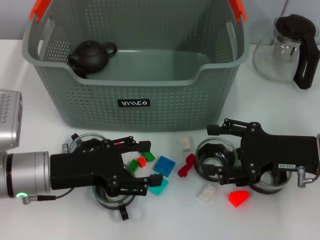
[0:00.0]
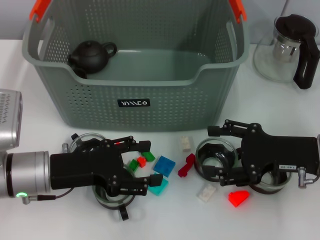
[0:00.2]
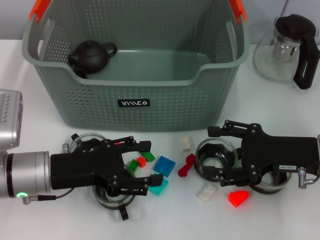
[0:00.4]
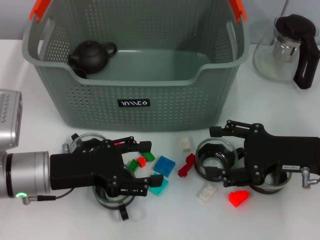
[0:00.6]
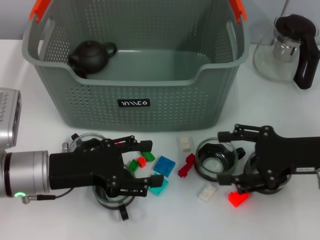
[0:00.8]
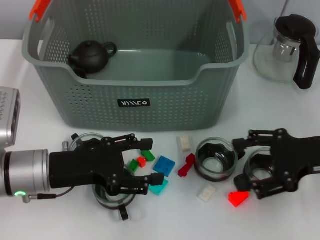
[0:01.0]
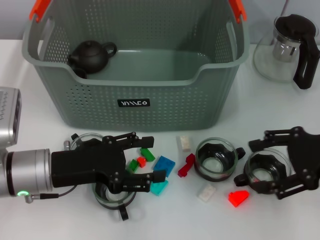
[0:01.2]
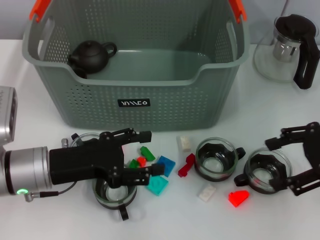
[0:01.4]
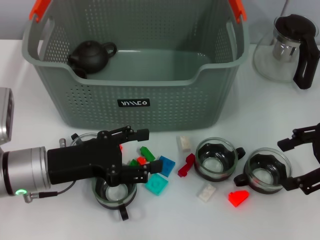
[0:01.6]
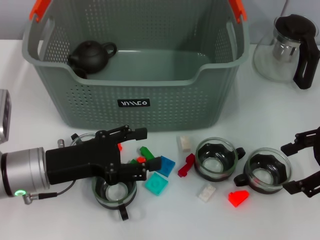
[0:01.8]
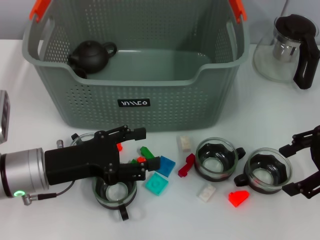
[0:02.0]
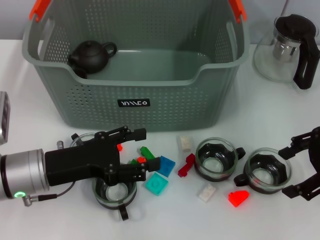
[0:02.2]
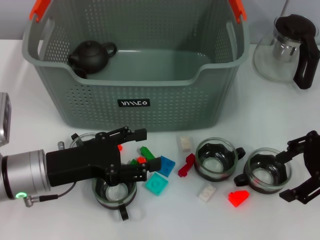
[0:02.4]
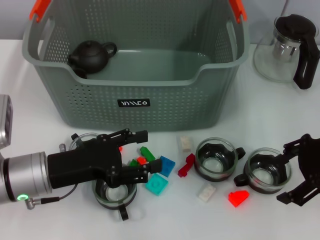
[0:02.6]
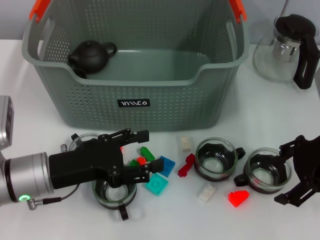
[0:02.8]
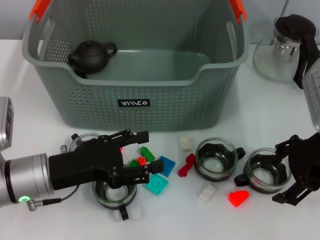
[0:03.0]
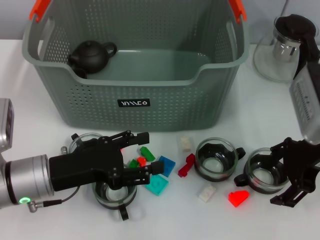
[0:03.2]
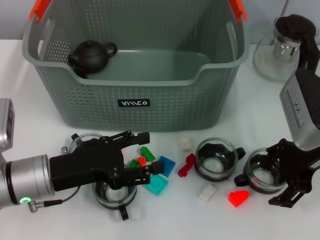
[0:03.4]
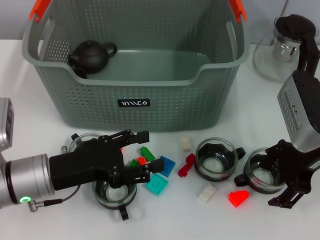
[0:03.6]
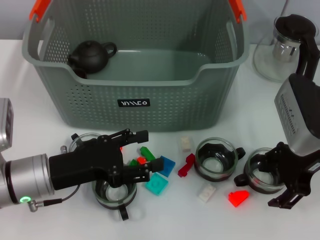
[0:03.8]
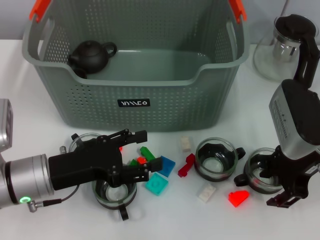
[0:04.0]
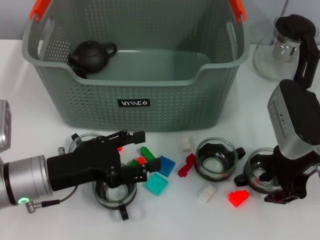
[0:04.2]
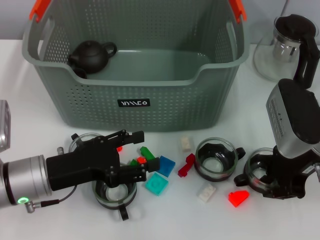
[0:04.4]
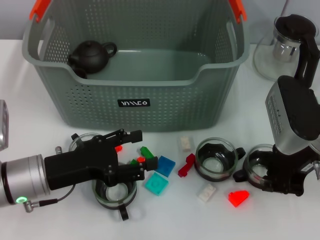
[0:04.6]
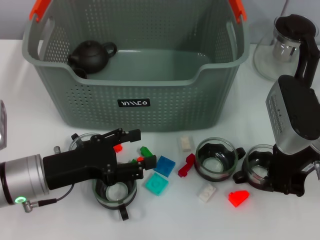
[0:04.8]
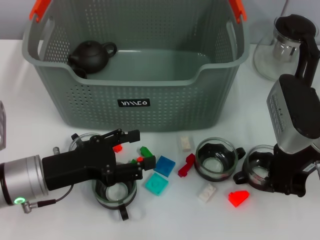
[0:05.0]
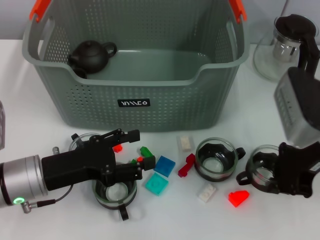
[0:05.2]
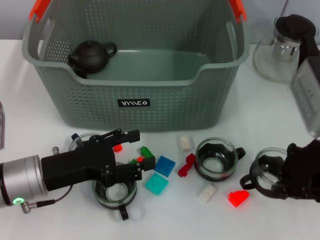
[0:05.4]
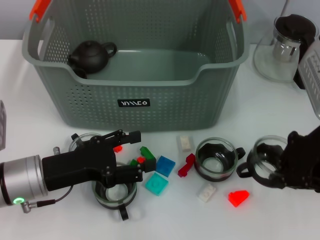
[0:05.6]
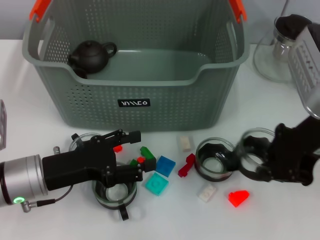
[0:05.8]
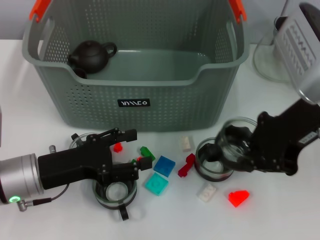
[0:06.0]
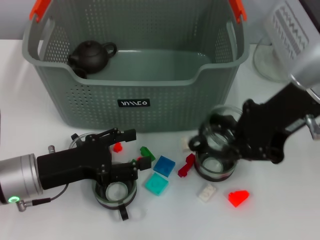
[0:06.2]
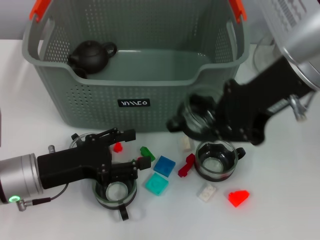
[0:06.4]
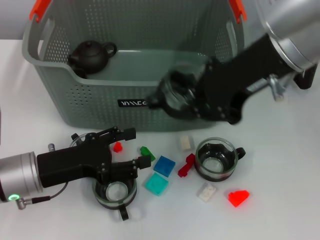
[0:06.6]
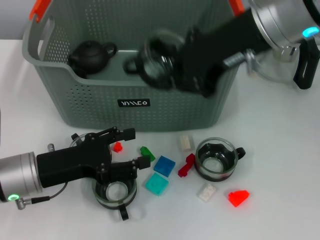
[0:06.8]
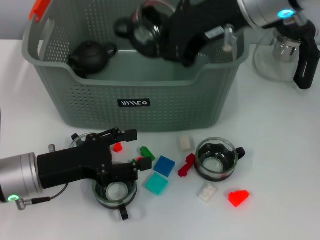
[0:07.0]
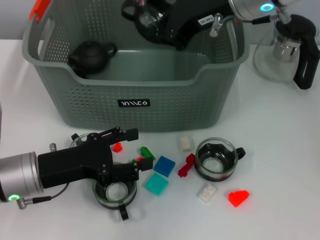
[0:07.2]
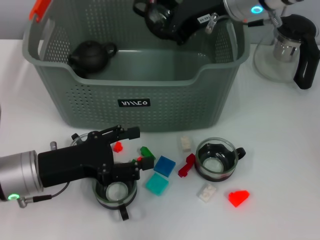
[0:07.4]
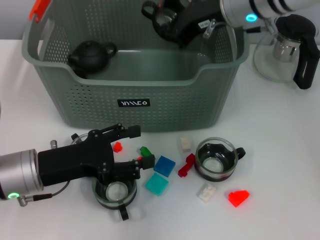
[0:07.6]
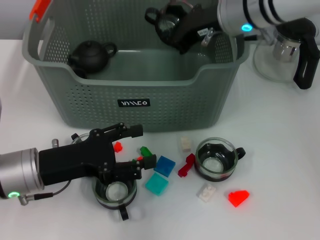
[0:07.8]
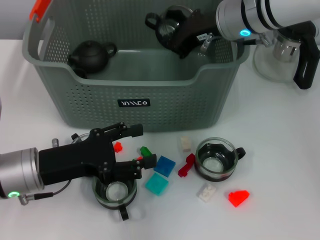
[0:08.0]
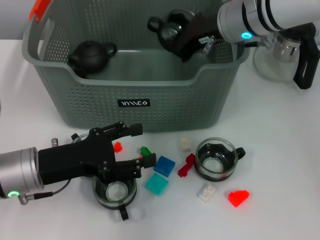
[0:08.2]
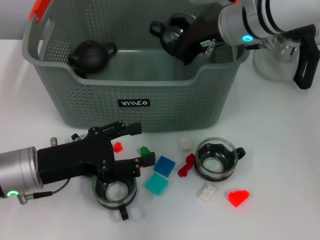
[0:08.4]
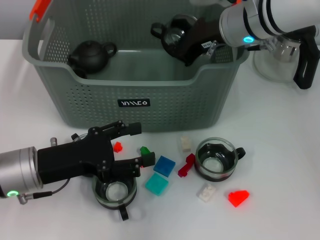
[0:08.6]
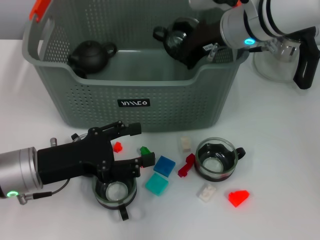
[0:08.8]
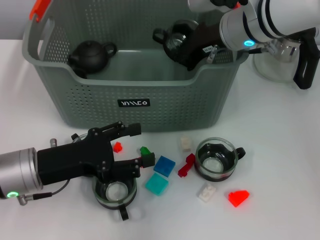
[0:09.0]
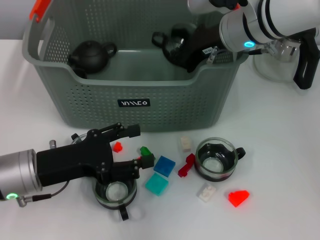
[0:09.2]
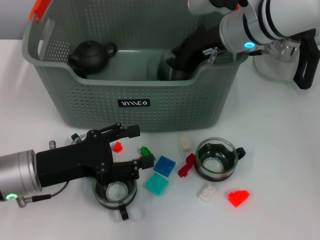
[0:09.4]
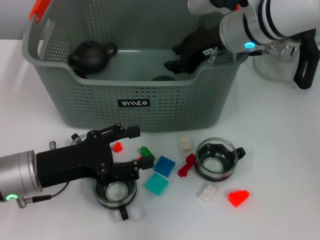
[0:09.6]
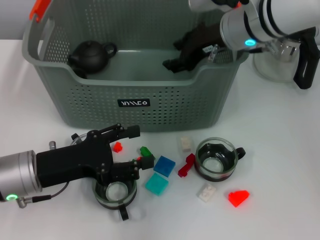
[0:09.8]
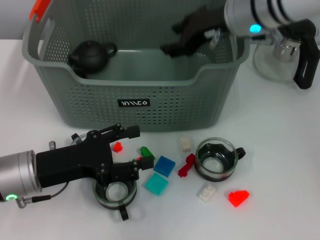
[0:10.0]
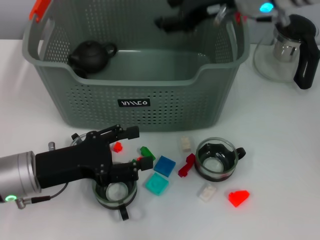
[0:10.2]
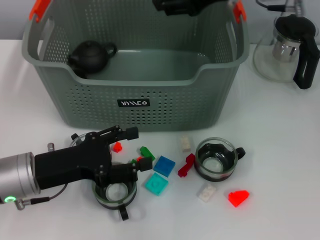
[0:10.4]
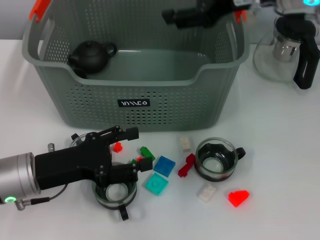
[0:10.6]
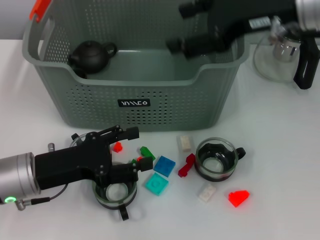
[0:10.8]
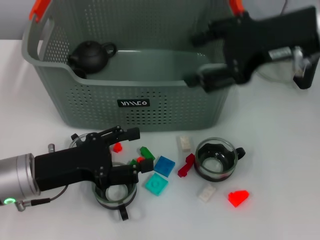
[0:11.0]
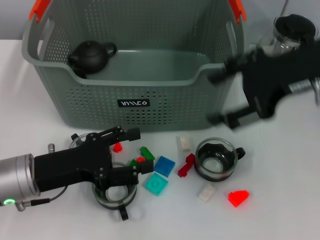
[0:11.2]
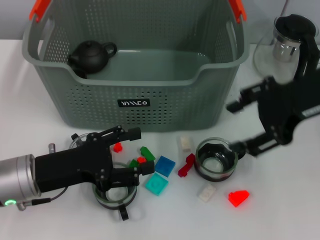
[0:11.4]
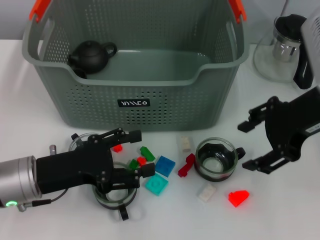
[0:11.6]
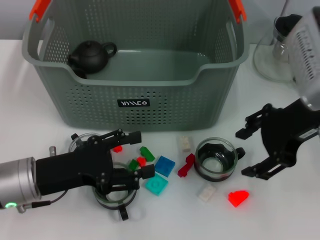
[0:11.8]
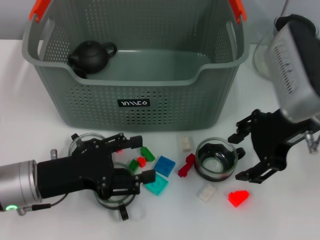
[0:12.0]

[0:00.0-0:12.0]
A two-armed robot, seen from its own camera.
Task of the whole recording: pick up the teacup on the table and place it into the storage bin, pick up the block on the table and place it into the storage bin.
Step, 0:00.0 to 0:04.4: Grasp the cup with right gripper.
Step, 0:04.8 to 0:10.2: Place the cup in the storage box with right gripper.
0:00.0 to 0:01.6: The right gripper is displaced upward and to the right by about 10 cm.
0:01.6 to 0:03.0: The right gripper heads to the left, covering about 5 cm.
0:03.0 to 0:04.4: The right gripper closes up.
0:04.4 to 0:06.0: The right gripper travels upward by some 10 cm, and closes.
0:06.0 to 0:07.6: The right gripper is displaced forward and to the left by roughly 15 cm.
0:07.6 to 0:09.0: The grippers move only a little.
0:09.0 to 0:10.4: The right gripper moves upward, roughly 10 cm, and opens its fingers.
0:10.4 to 0:12.0: The right gripper is displaced backward and downward by approximately 10 cm.

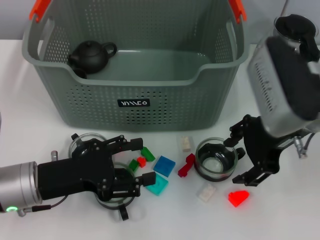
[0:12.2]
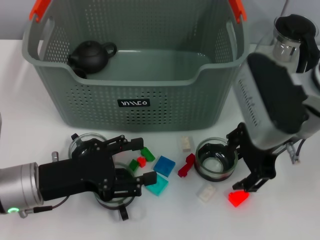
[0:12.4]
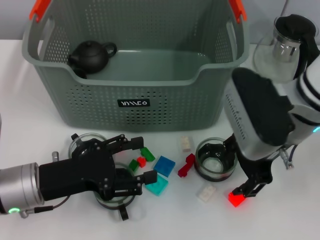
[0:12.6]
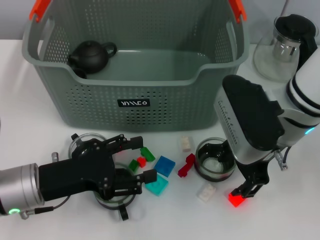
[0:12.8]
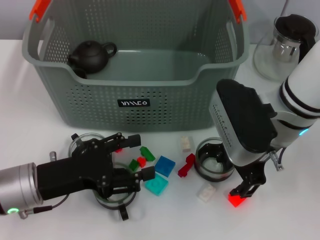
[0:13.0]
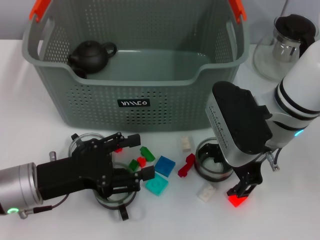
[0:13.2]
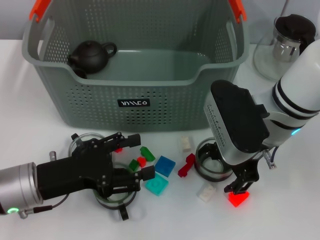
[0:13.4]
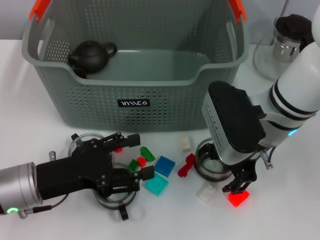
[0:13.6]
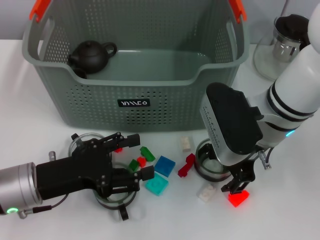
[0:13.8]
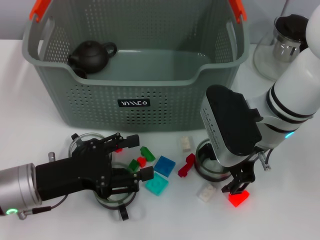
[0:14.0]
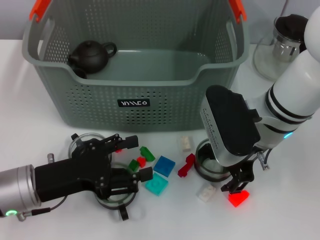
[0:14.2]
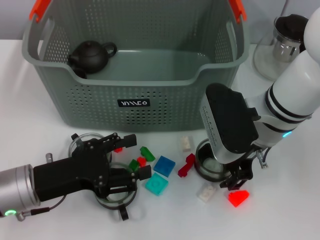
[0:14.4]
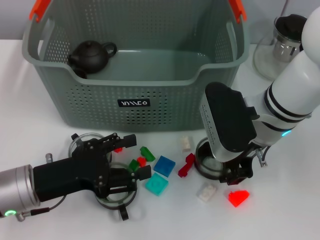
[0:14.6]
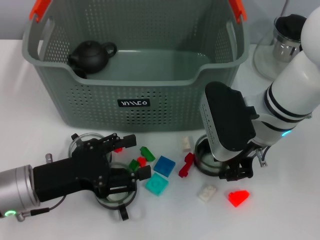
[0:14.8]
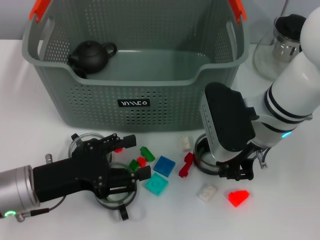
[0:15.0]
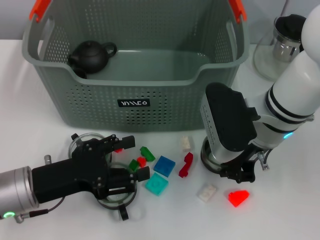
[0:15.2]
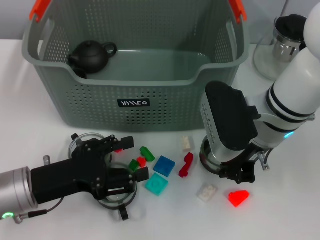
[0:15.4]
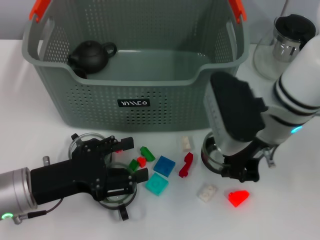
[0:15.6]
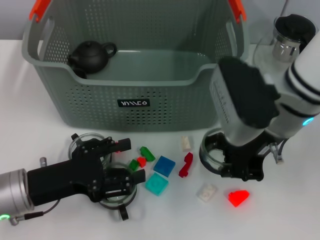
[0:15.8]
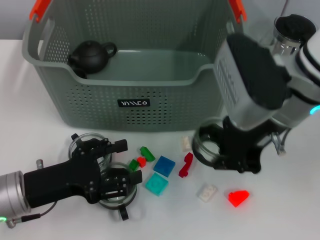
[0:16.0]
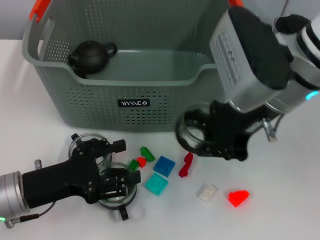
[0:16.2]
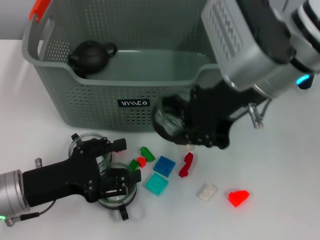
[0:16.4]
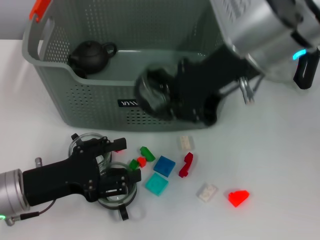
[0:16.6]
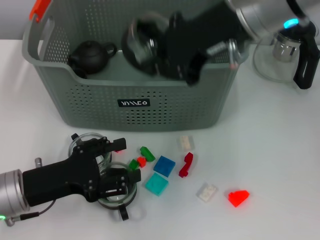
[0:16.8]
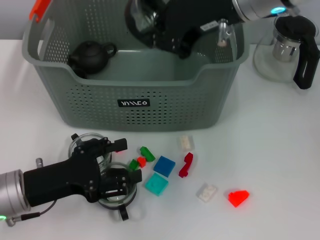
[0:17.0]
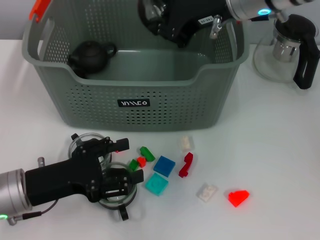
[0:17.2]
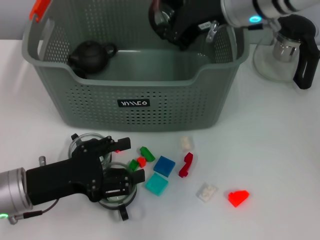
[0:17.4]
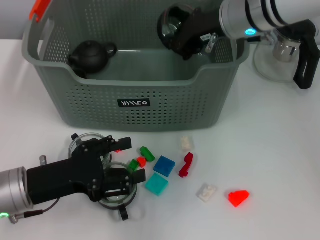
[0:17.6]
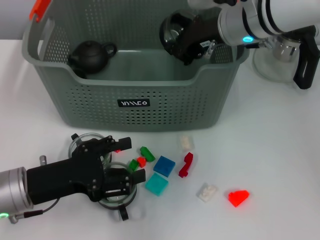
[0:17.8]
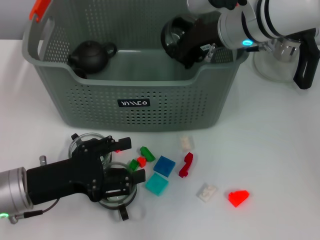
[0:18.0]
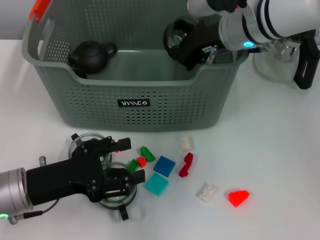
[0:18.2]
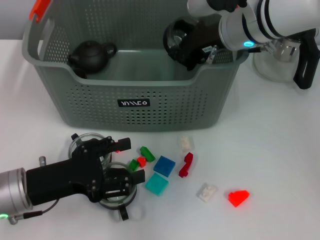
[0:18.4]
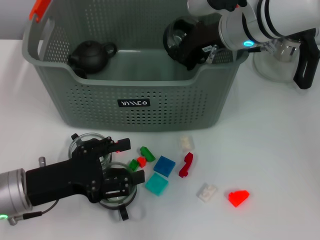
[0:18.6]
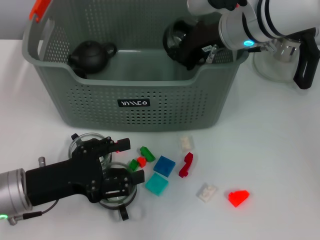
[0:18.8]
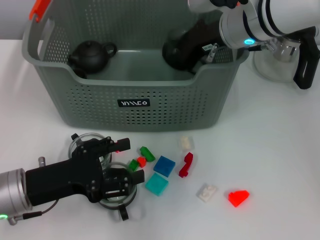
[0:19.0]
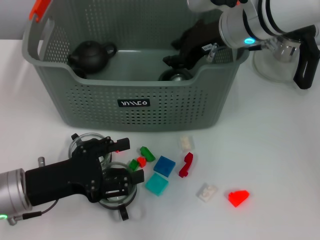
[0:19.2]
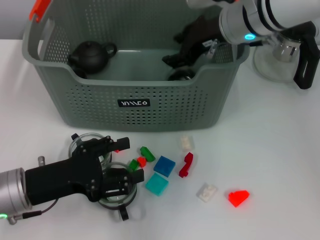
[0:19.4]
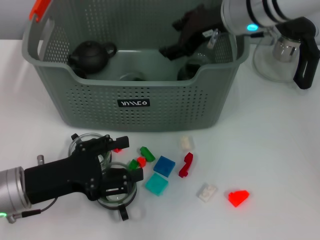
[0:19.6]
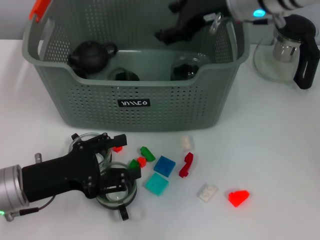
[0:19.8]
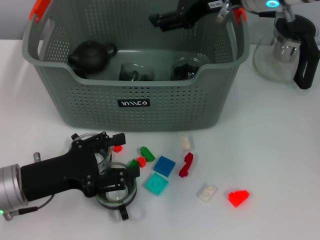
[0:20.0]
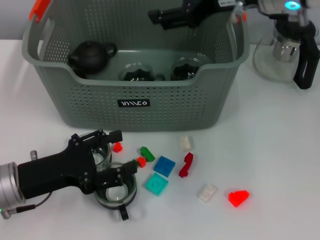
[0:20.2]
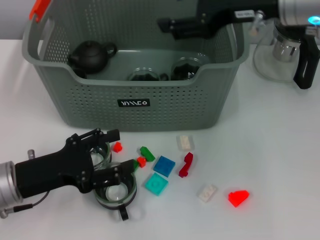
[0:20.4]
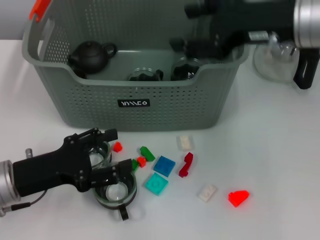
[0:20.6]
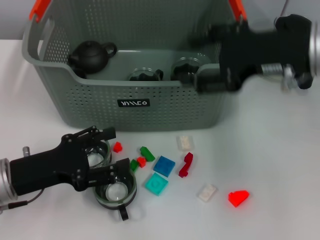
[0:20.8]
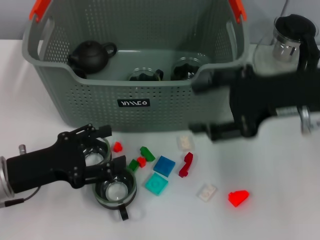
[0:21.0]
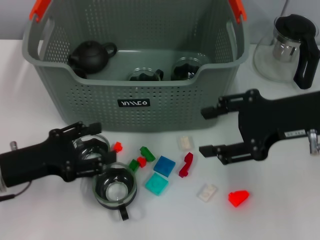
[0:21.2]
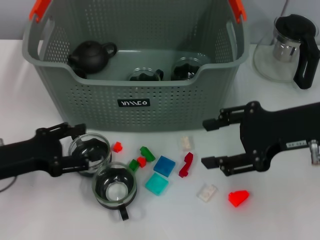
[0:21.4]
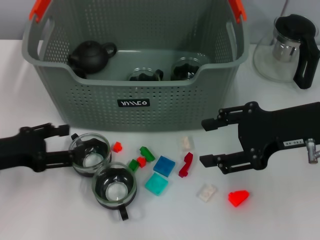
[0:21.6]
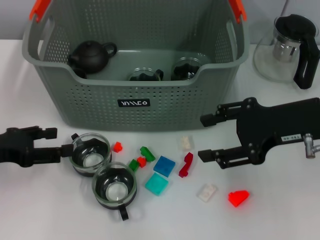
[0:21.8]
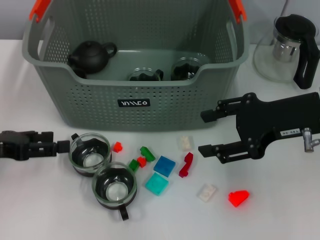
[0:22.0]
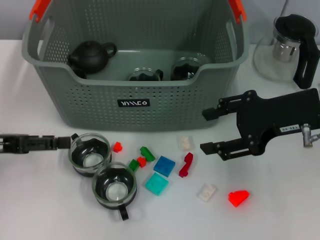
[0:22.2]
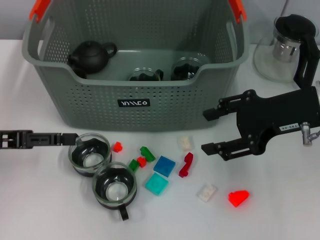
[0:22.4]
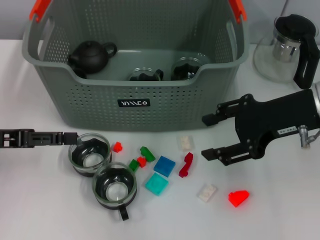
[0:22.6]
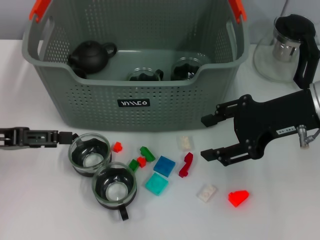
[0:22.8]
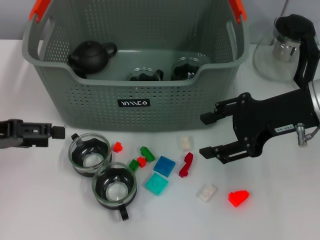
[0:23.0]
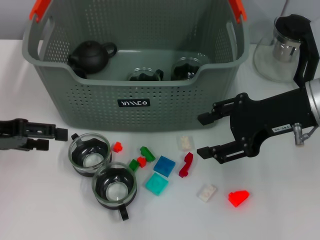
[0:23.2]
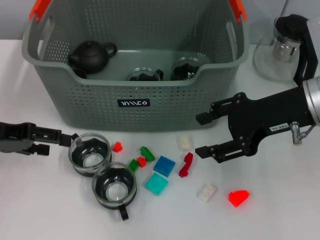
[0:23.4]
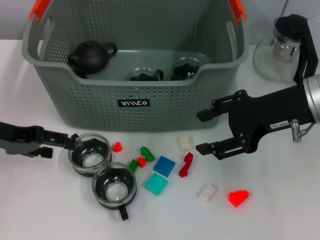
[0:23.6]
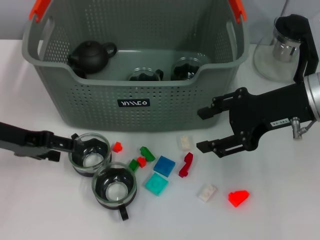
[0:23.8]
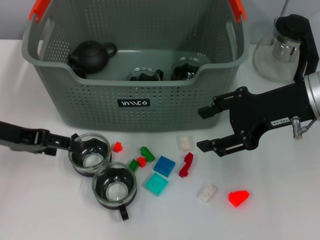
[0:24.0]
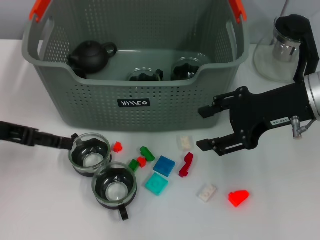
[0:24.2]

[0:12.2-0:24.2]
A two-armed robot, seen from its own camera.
Task of the whole recording: pick up the teacup on the table and place it into the storage bin, pick up the block on the table and place it into the storage bin.
Step, 0:12.2 to 0:15.0: Grasp the cup with right gripper.
Step, 0:15.4 to 0:19.6: Place the cup in the storage box with right gripper.
0:12.2 to 0:13.8: The right gripper is displaced downward by some 5 cm.
0:13.8 to 0:15.2: The right gripper closes up.
0:15.2 to 0:16.6: The right gripper shifts approximately 15 cm upward.
0:16.6 to 0:18.2: The right gripper goes roughly 15 cm forward and downward.
0:18.2 to 0:19.8: The right gripper moves upward, approximately 5 cm, and opens.
0:19.8 to 0:21.2: The right gripper travels backward and to the right by roughly 15 cm.
0:21.2 to 0:22.6: The left gripper goes approximately 5 cm upward.
